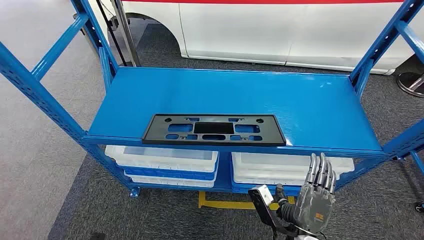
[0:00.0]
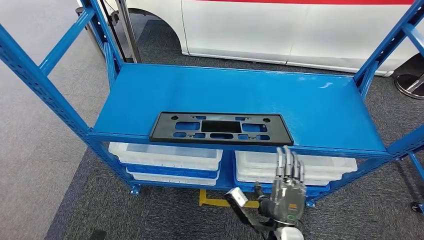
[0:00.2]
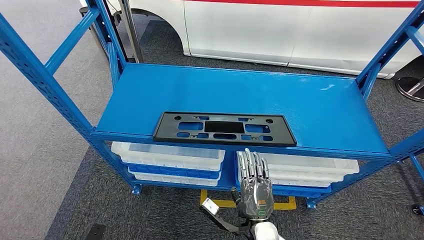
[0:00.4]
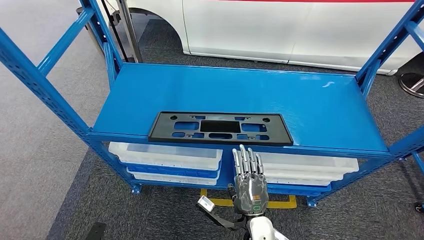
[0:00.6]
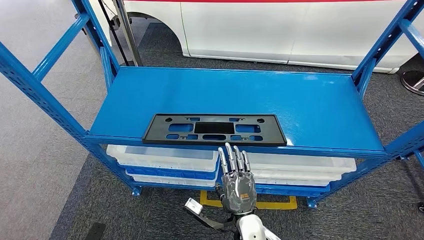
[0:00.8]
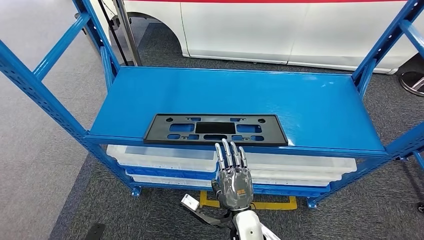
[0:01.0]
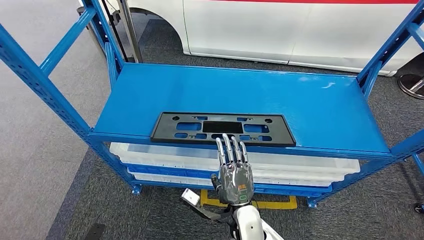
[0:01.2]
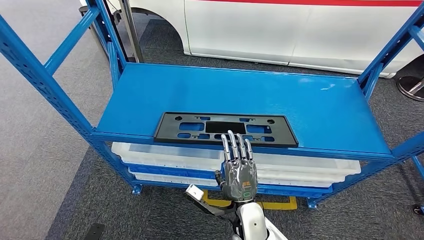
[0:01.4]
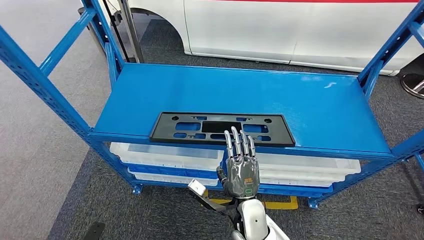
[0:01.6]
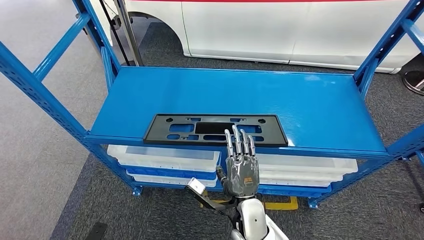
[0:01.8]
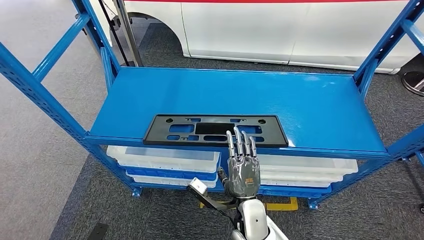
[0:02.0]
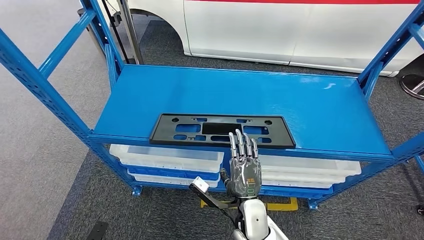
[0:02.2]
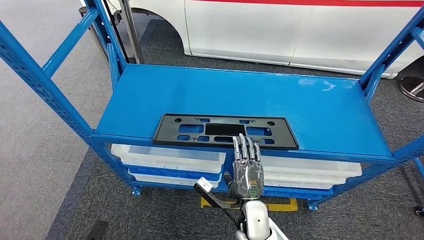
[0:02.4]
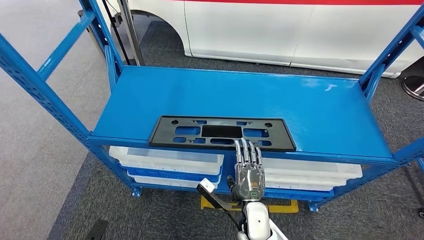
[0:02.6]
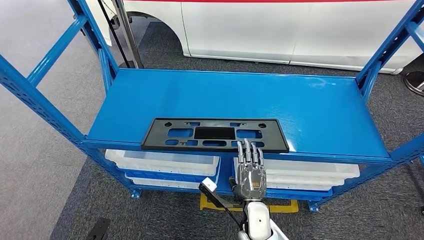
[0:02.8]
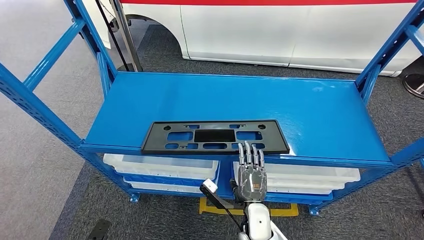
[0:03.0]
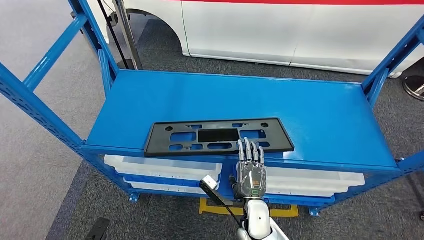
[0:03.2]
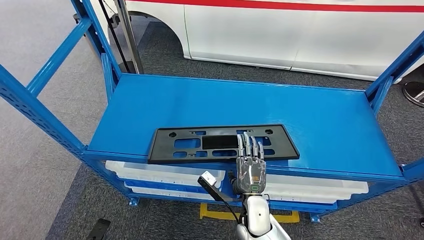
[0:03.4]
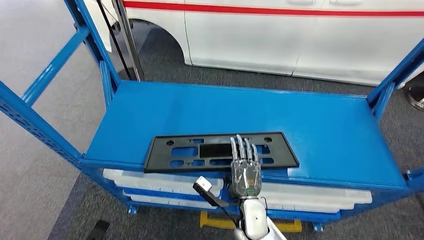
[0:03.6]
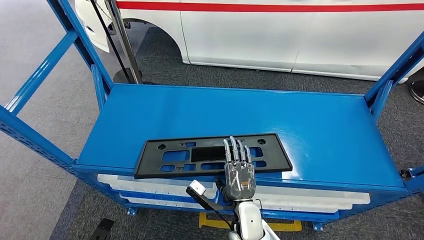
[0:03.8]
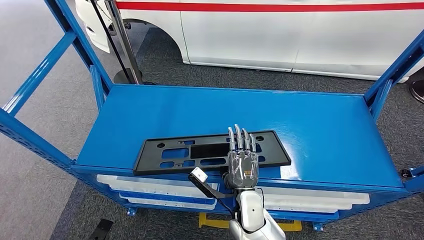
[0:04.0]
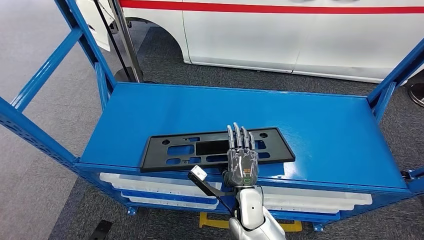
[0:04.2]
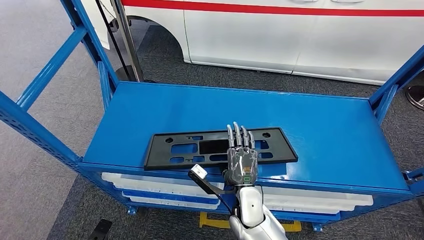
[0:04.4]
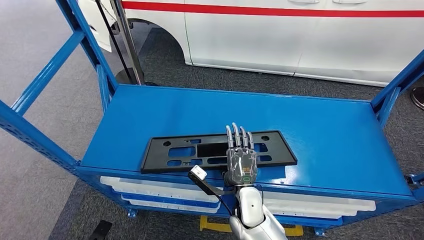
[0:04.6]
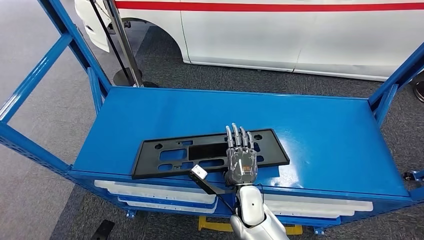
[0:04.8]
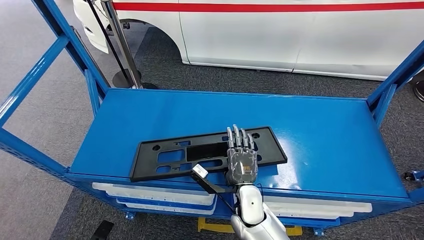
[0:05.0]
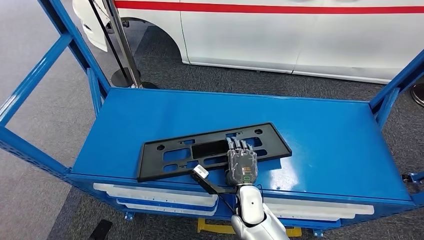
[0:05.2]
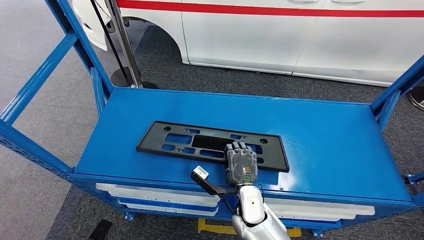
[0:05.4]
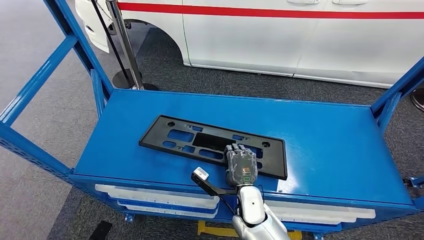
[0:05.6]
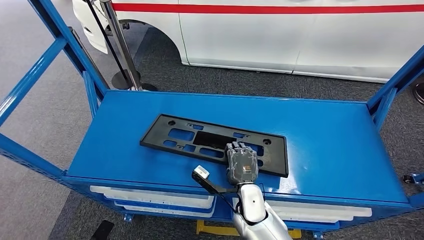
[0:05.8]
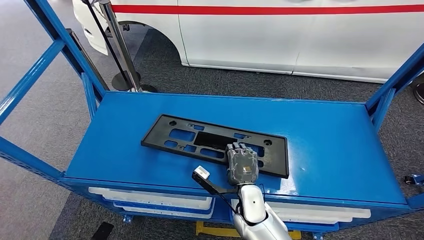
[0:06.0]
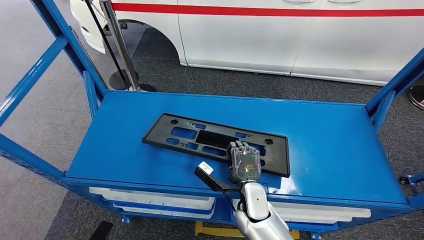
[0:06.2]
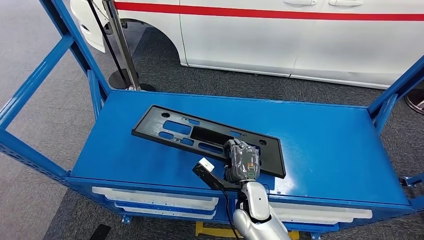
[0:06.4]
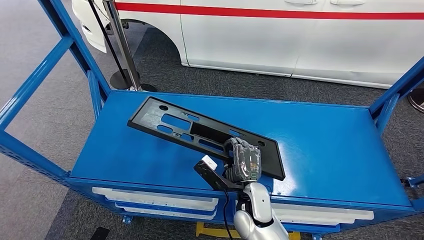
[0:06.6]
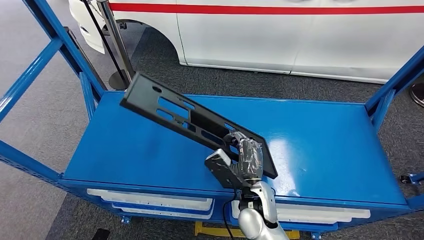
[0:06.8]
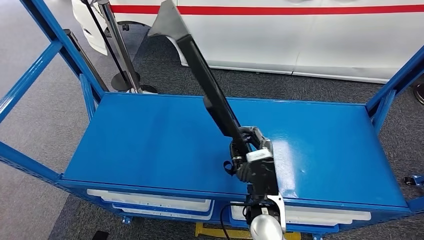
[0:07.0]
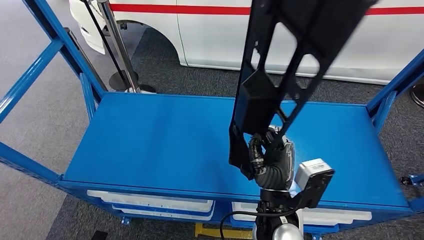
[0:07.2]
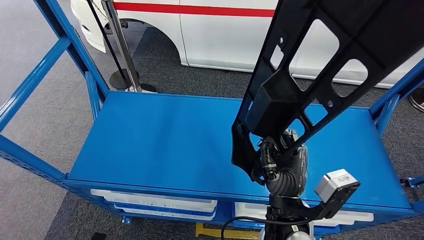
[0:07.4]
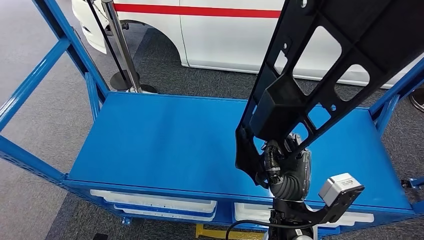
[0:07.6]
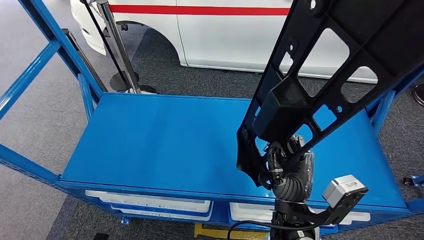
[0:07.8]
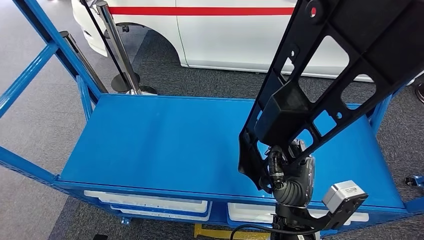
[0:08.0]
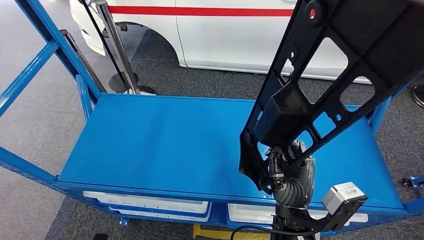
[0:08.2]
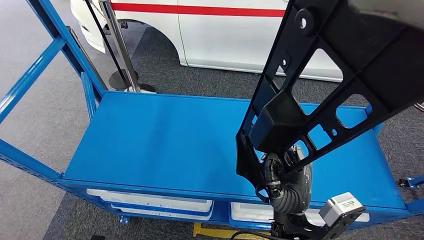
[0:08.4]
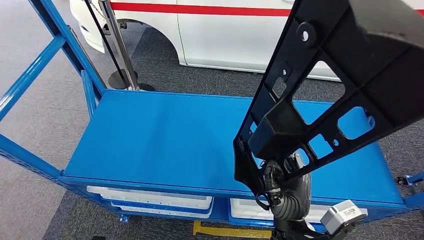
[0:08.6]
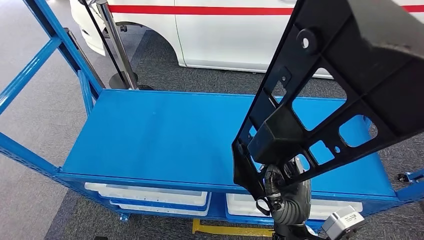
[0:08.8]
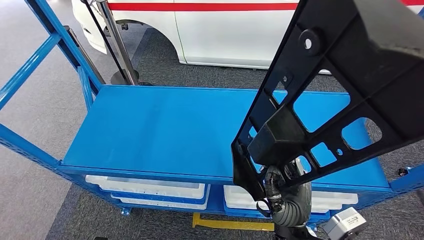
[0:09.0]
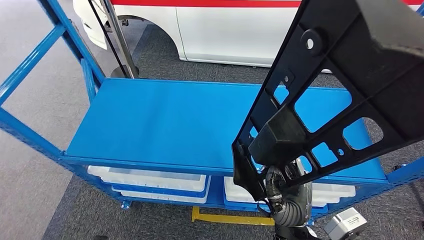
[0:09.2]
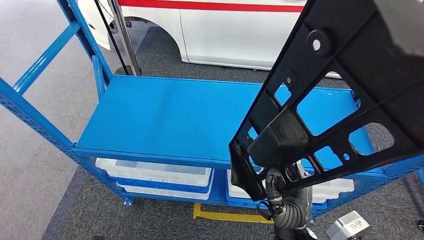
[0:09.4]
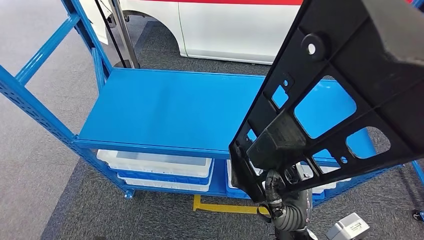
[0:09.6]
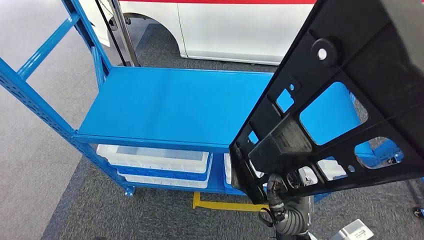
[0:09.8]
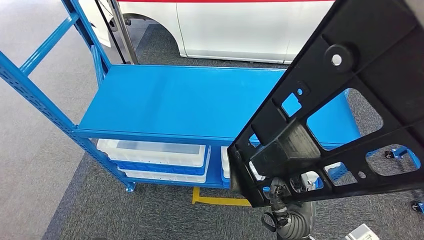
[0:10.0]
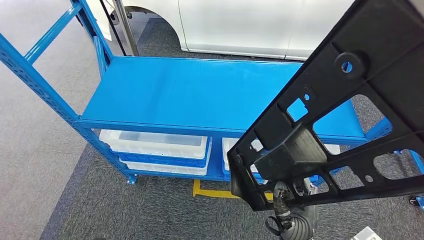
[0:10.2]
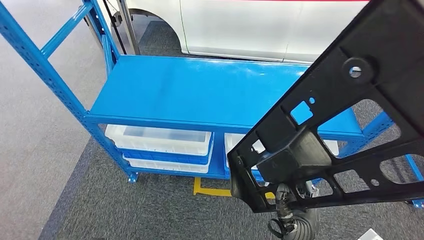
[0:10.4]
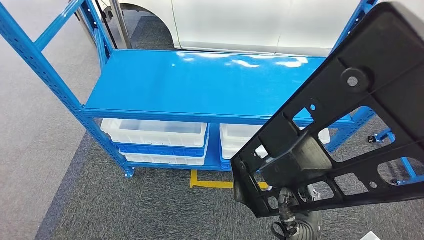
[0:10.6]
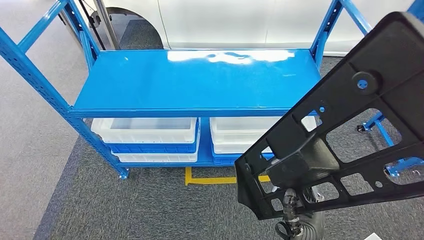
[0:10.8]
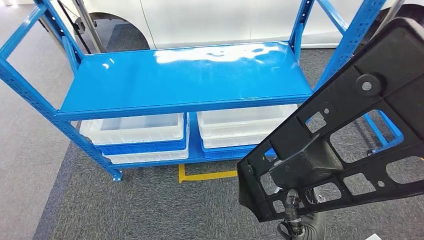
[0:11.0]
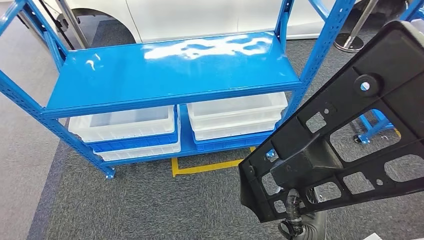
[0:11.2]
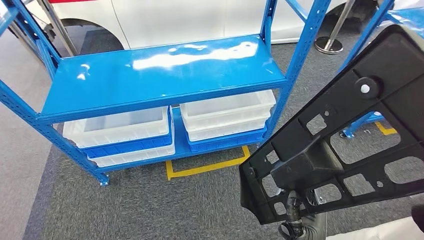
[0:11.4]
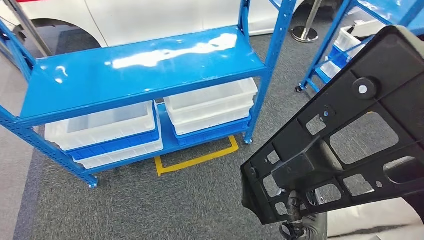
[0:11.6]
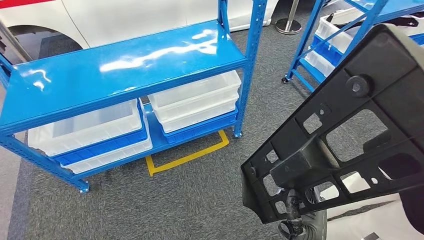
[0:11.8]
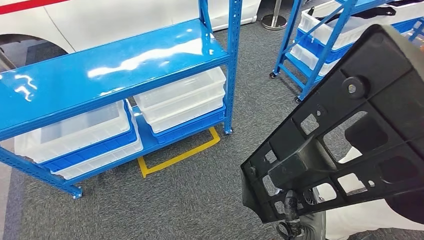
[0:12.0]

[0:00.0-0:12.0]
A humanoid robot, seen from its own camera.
Step, 0:00.0 to 0:07.2: Pick up the large material from the shelf.

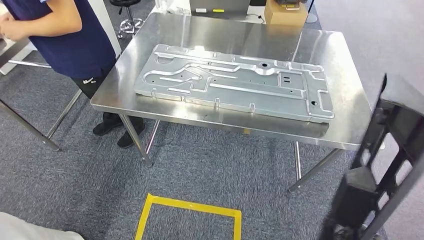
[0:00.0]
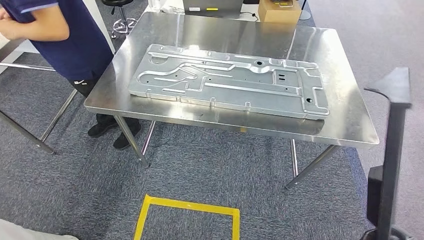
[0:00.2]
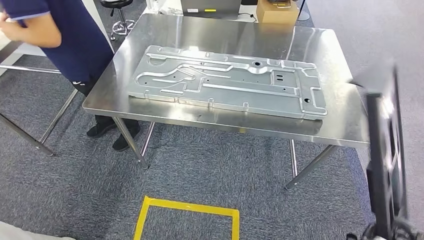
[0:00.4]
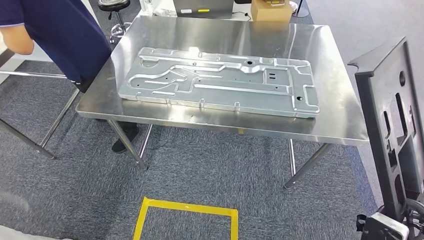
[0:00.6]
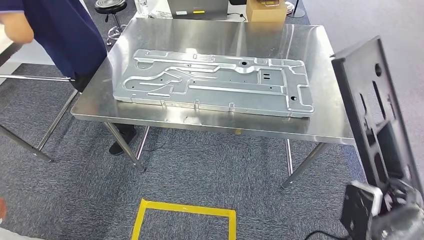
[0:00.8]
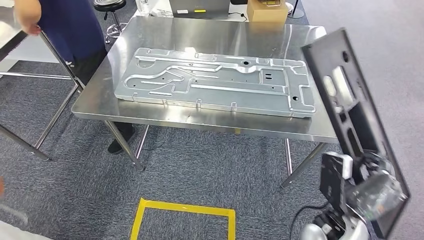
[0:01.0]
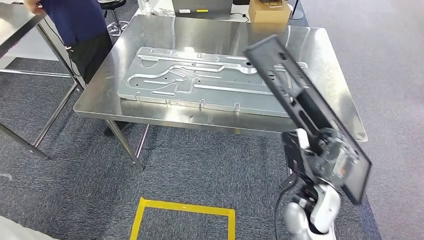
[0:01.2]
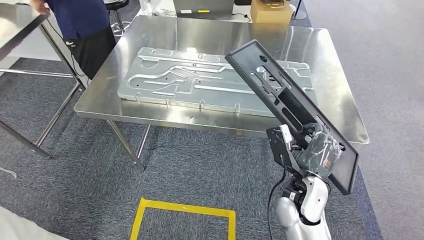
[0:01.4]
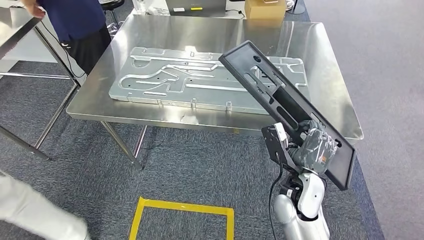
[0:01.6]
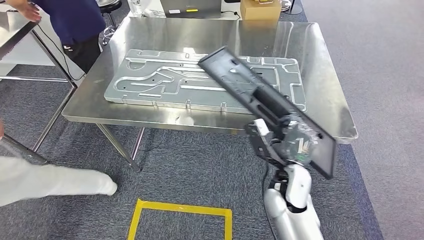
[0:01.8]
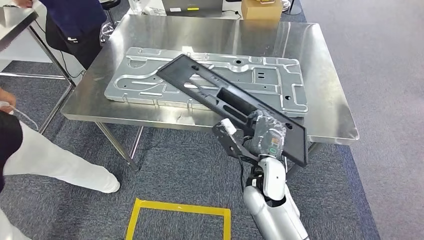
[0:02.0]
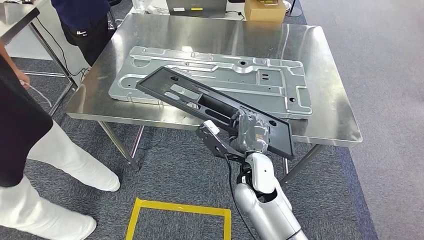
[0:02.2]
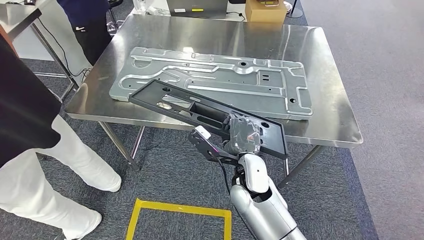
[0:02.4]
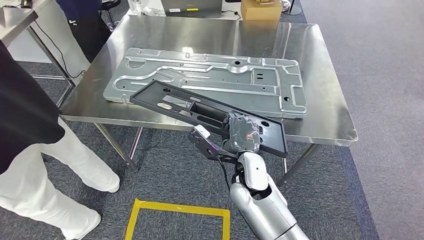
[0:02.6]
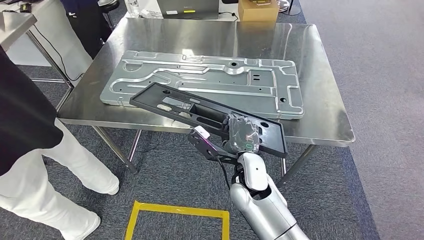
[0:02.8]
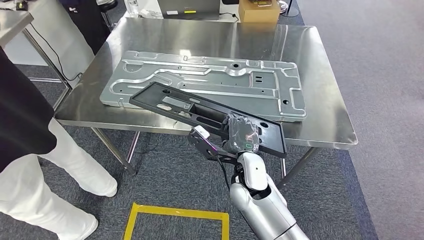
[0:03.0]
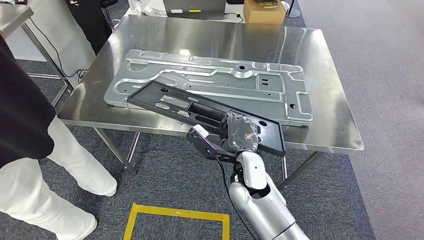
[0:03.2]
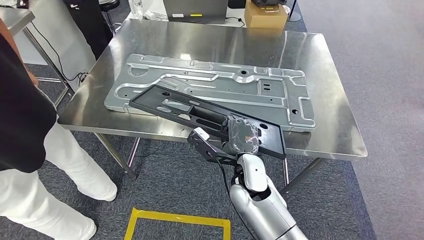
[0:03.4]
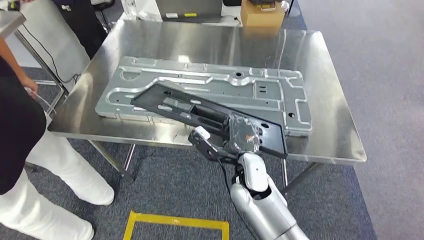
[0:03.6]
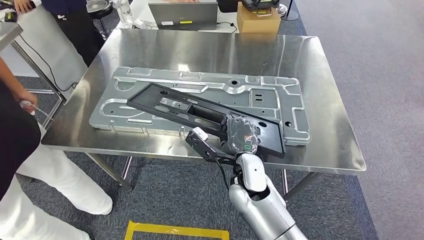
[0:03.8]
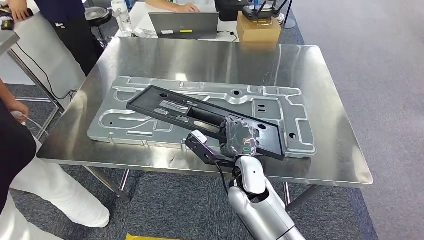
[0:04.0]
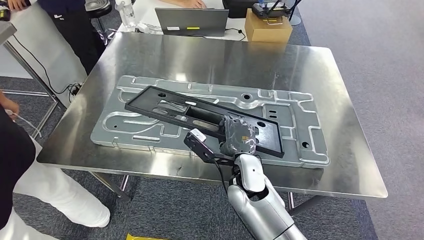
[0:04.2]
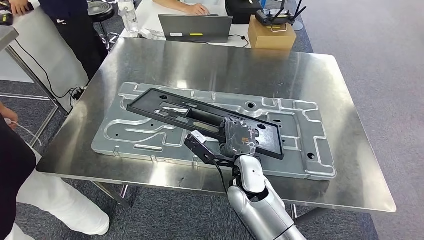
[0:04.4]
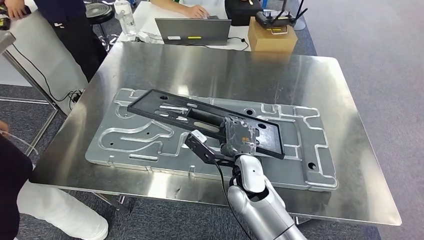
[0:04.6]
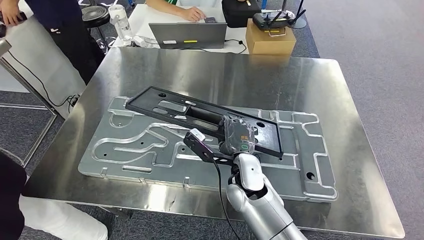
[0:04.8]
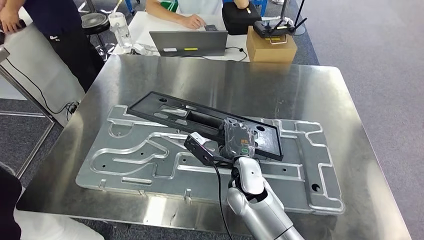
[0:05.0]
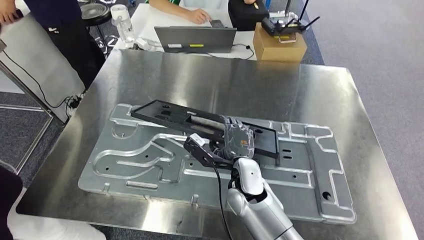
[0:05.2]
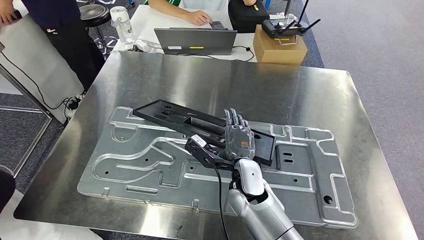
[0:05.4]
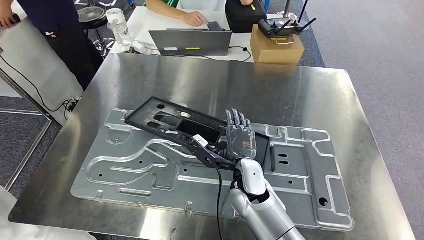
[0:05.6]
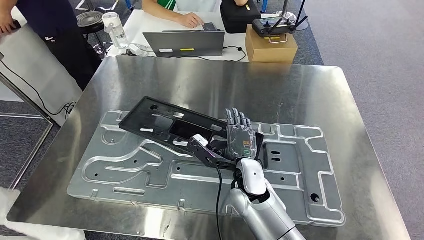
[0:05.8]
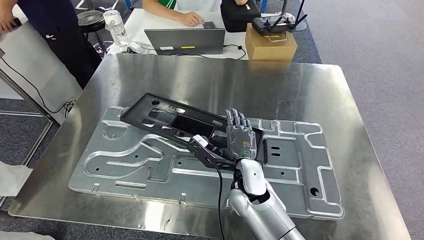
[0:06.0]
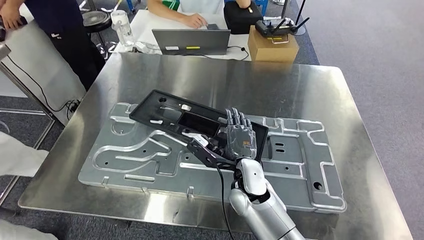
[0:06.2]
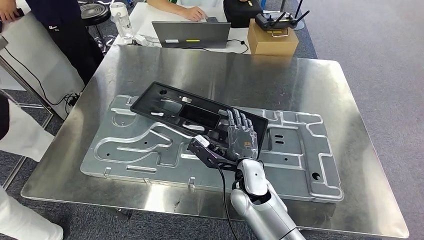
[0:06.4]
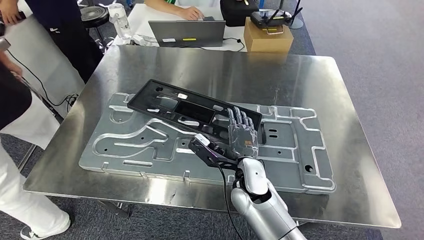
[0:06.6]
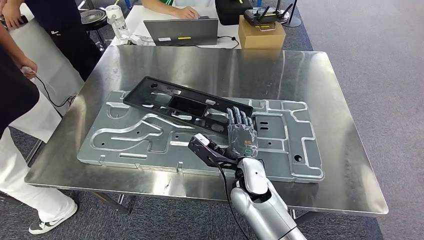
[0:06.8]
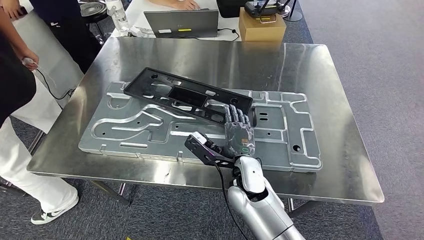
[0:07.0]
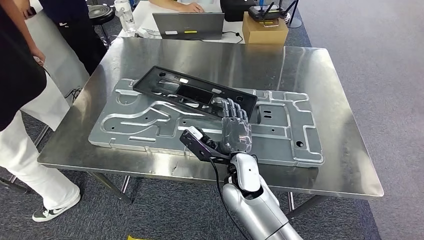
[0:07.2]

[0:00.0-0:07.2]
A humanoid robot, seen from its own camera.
Step, 0:00.0 to 0:02.2: Move the large material to the front of the workbench.
Step, 0:02.4 to 0:06.0: Insert the large material into the corresponding hole on the workbench.
